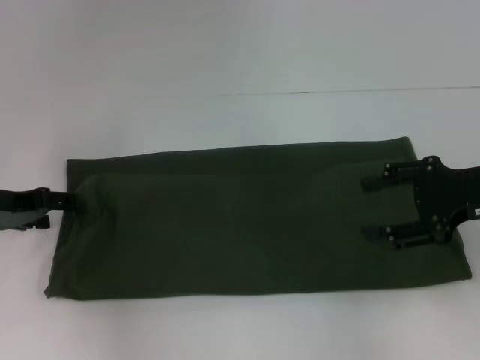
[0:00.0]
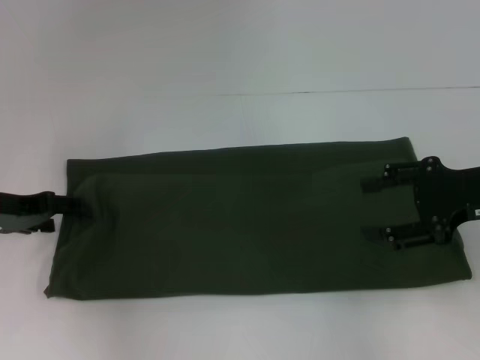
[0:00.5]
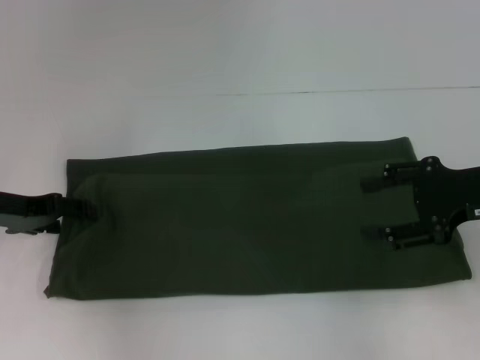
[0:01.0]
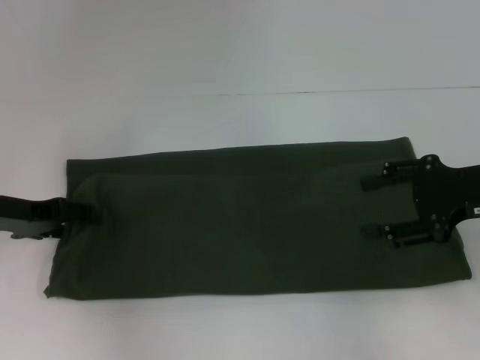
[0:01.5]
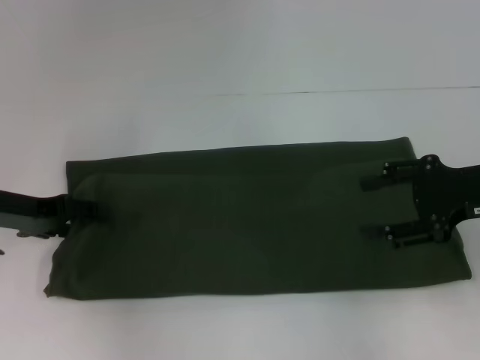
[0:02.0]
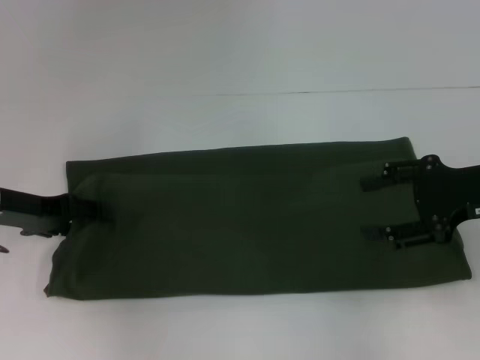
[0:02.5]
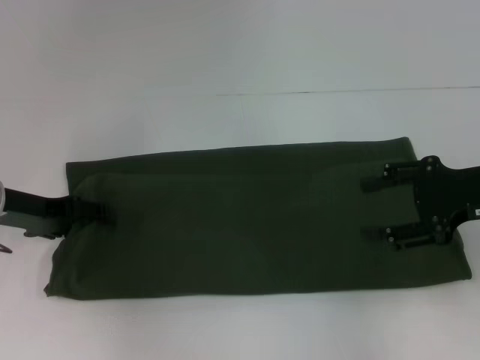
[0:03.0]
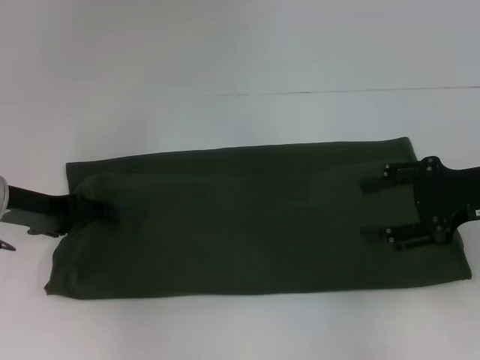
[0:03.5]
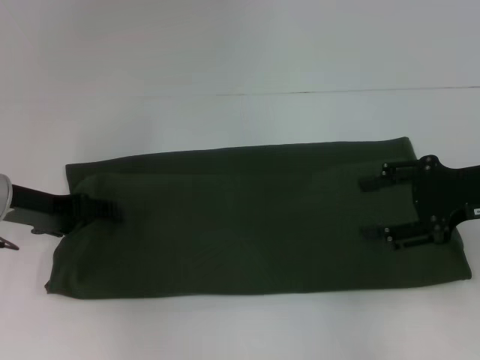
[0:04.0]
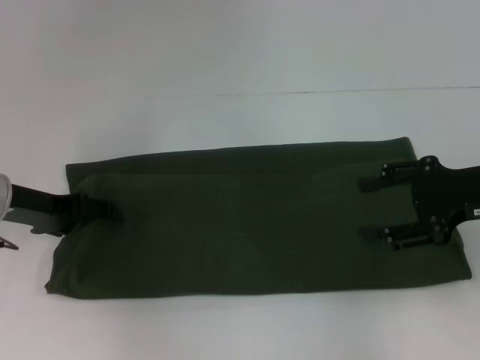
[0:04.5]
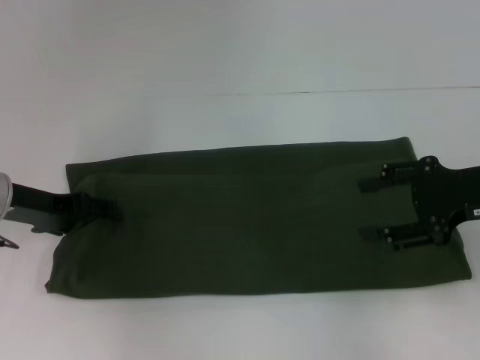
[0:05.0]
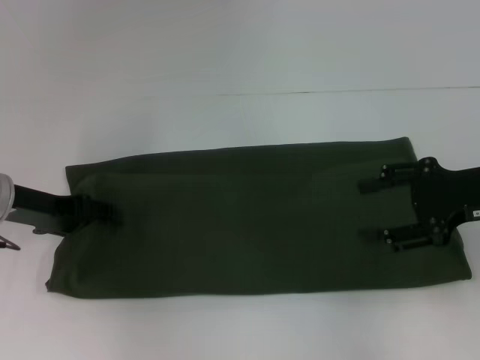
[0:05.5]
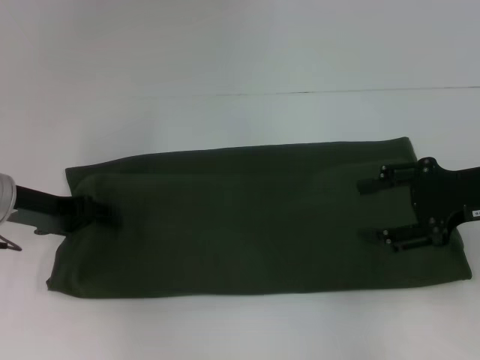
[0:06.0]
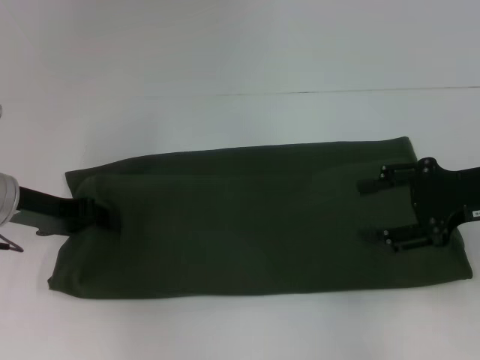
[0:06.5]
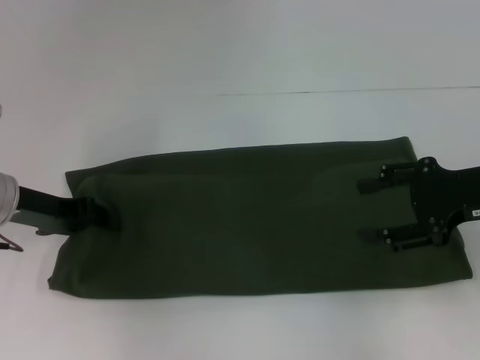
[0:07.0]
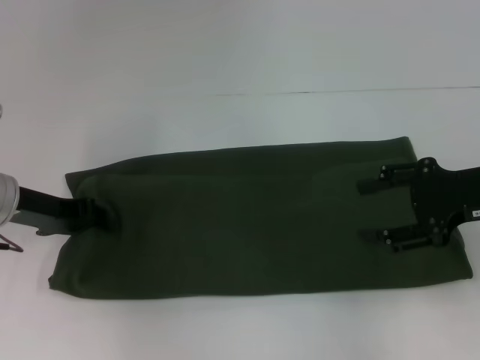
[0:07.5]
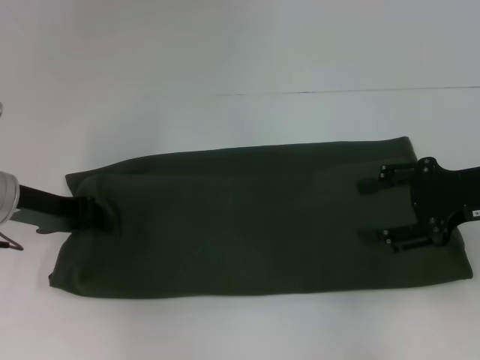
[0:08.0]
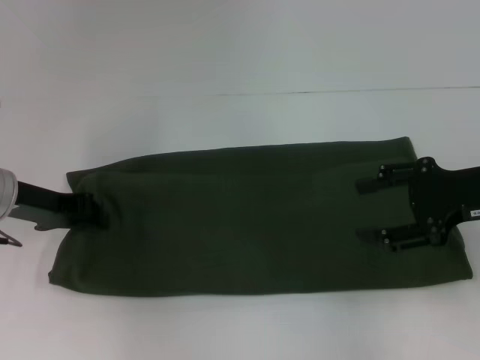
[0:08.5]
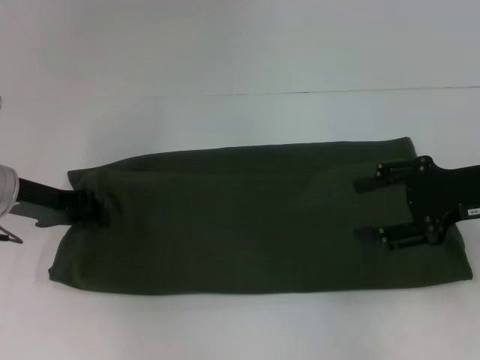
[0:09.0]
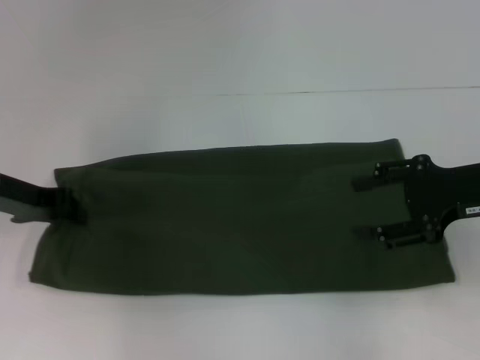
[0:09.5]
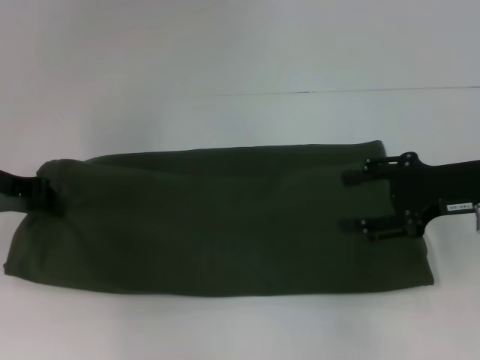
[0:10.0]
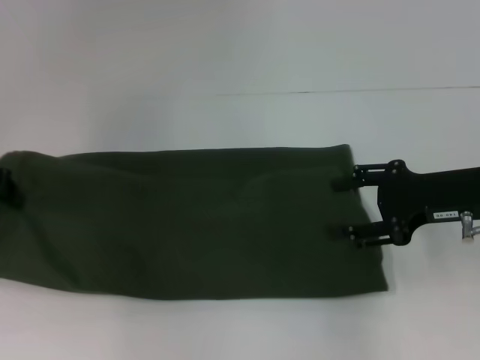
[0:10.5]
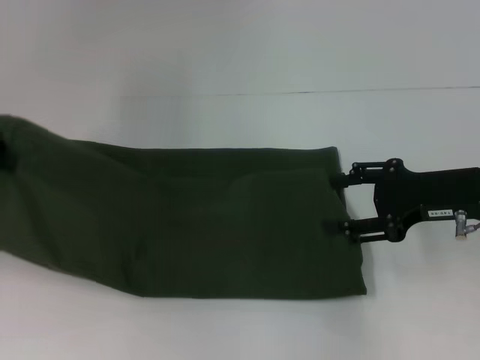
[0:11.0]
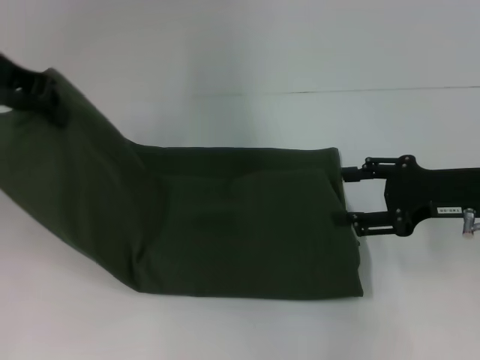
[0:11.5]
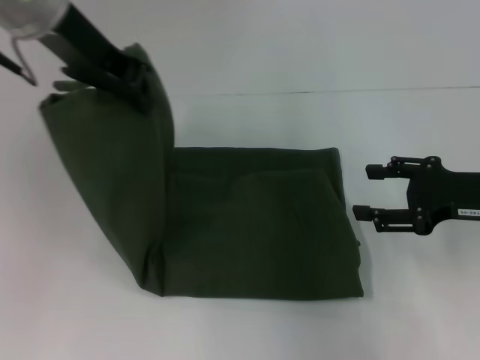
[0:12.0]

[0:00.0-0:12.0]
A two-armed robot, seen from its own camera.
0:00.0 to 0:04.0: The grippers make only small movements.
0:04.0 to 0:06.0: Both grippers stay put.
0:06.0 to 0:08.0: The left gripper closes its fingers.
0:08.0 to 0:10.0: The left gripper moves about 5 cm.
0:10.0 to 0:12.0: The left gripper goes approximately 25 cm upward and to the right.

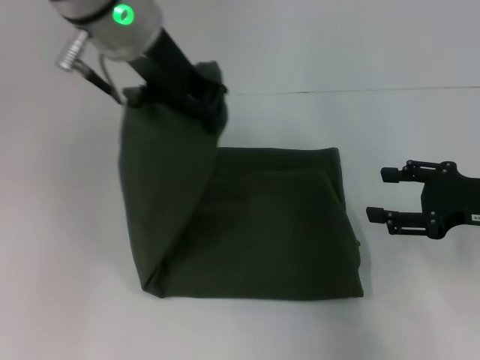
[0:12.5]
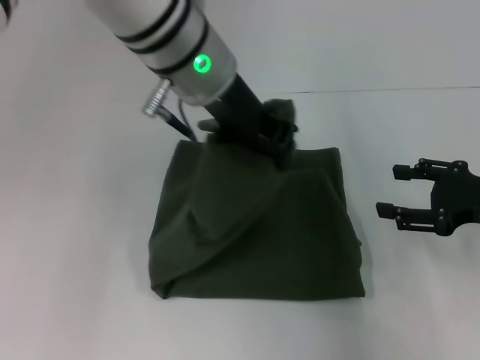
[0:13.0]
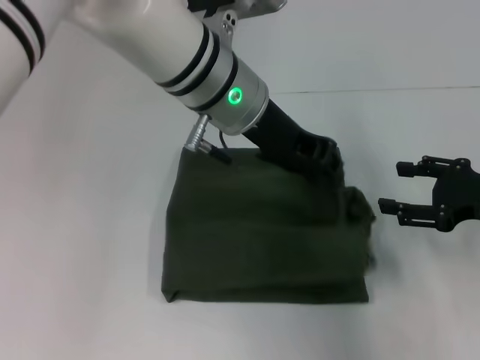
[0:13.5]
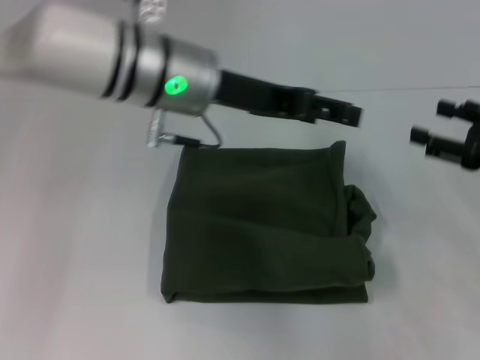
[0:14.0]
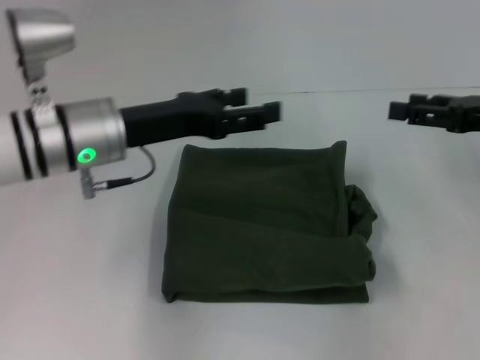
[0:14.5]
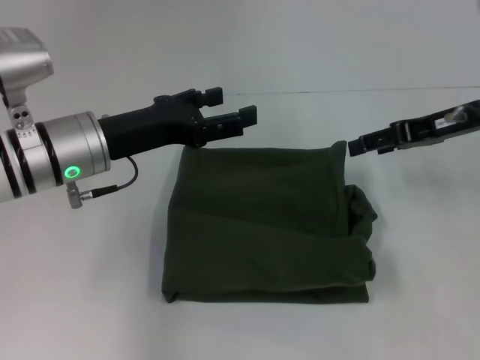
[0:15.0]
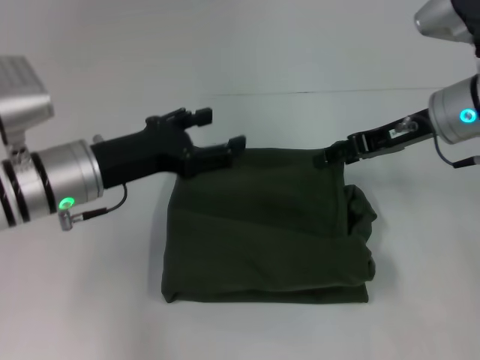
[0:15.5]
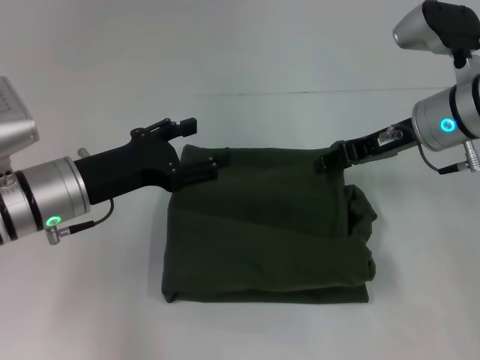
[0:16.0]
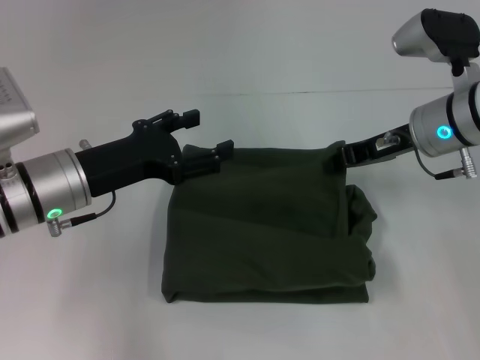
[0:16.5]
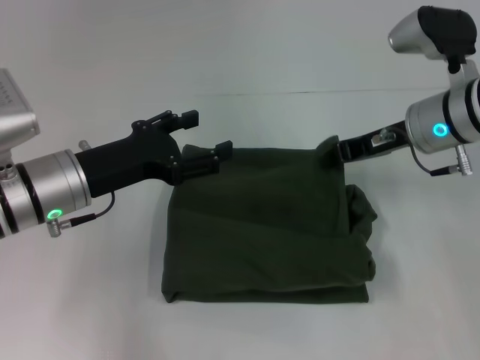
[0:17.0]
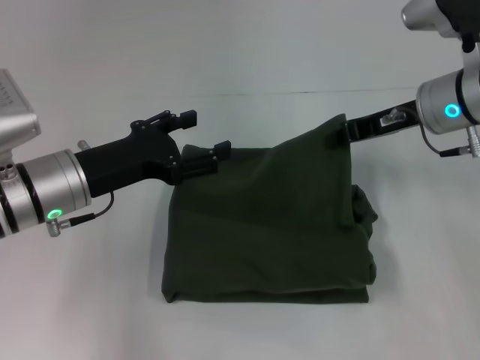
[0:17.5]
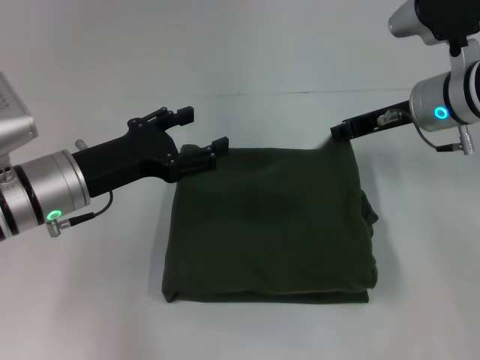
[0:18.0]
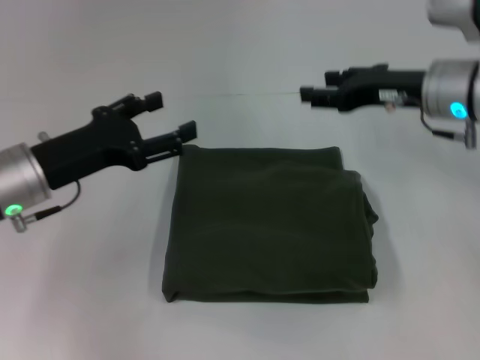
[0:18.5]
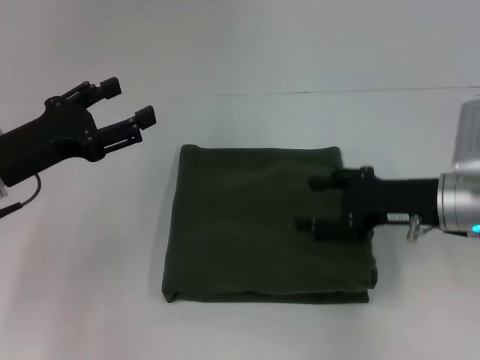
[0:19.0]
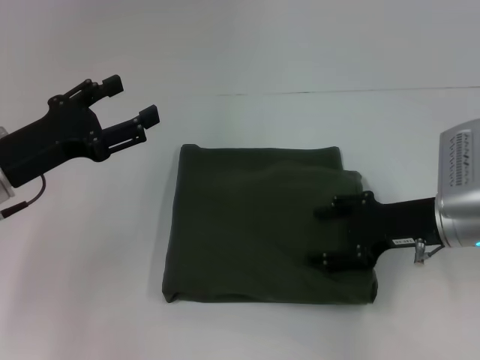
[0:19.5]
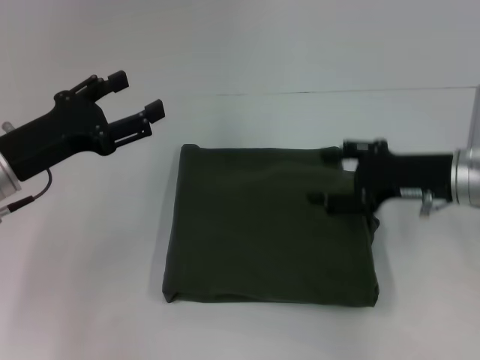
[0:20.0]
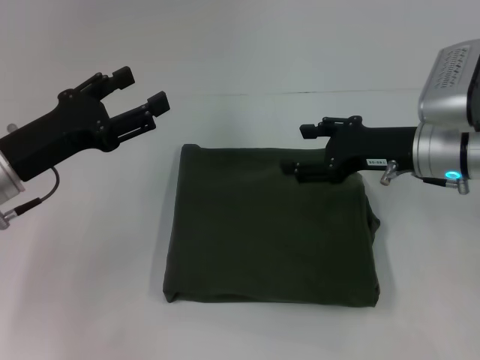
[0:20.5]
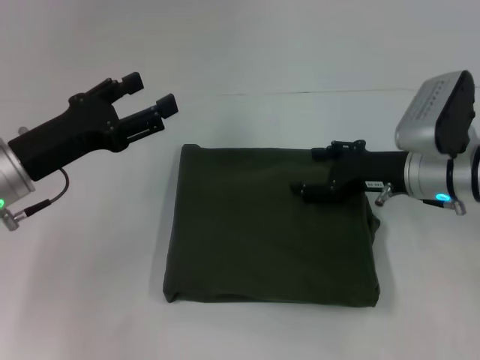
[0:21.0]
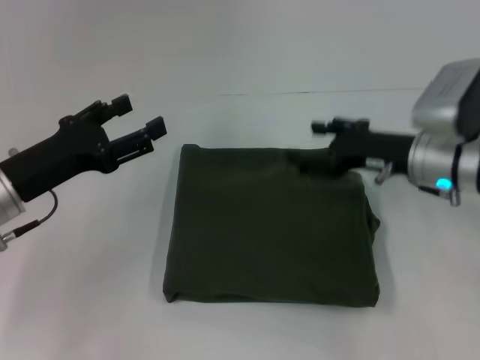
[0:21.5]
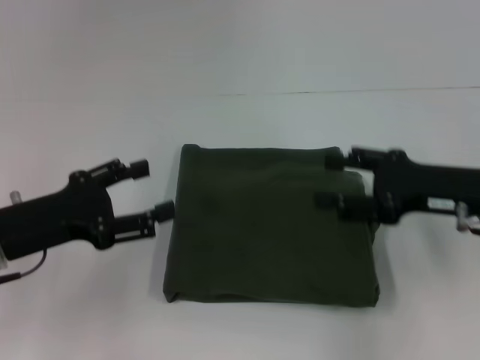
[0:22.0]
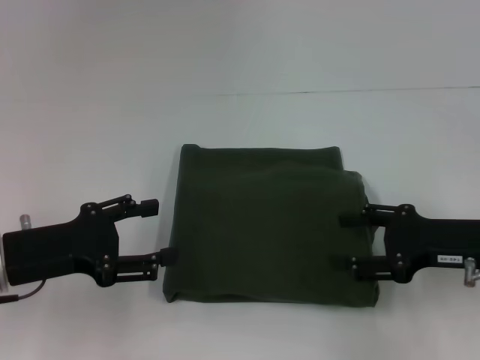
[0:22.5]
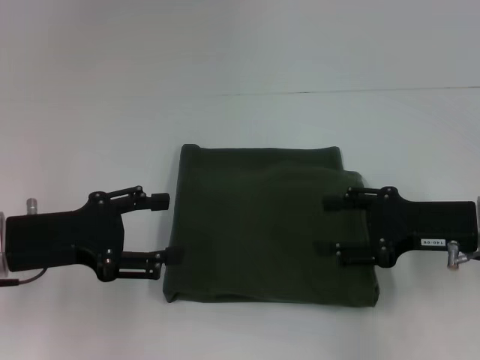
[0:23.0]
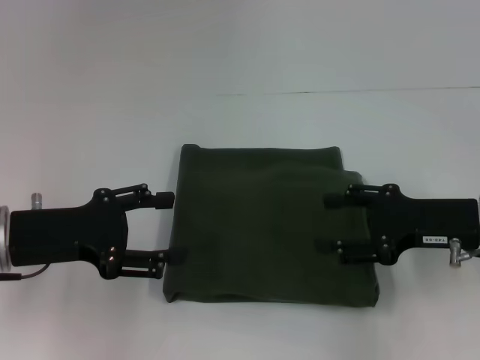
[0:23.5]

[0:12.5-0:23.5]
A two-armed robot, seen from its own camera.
0:12.5 to 0:14.5: The left gripper heads downward and to the left, covering about 15 cm, and opens up; the right gripper is displaced upward by about 5 cm.
0:14.5 to 0:16.0: The right gripper shifts approximately 15 cm to the left and forward; the left gripper goes approximately 5 cm downward.
0:16.0 to 0:18.0: The right gripper closes up.
0:18.0 to 0:20.0: The right gripper shifts about 10 cm backward, and opens its fingers, while the left gripper is displaced to the left by roughly 5 cm.
0:20.0 to 0:21.5: The grippers make only small movements.
0:21.5 to 0:23.5: The right gripper is displaced backward by approximately 5 cm.

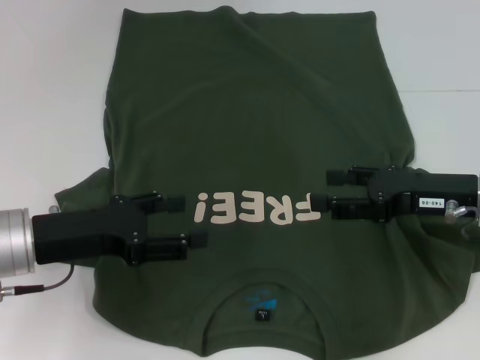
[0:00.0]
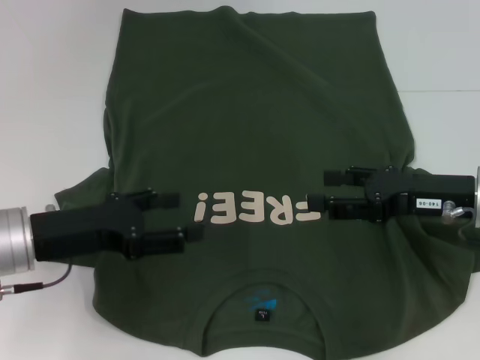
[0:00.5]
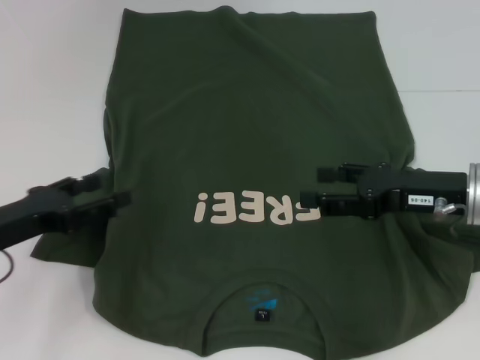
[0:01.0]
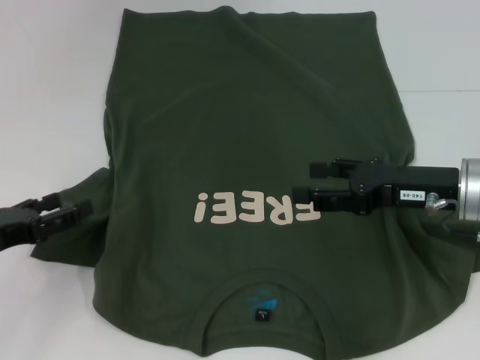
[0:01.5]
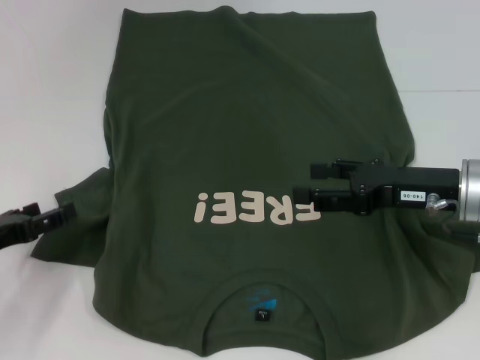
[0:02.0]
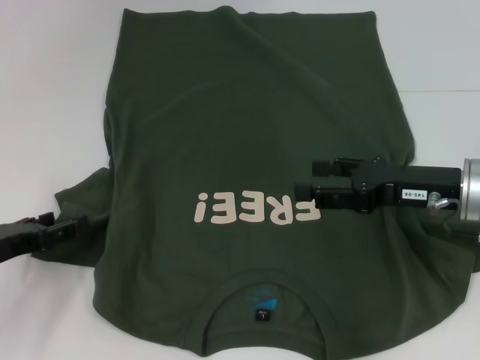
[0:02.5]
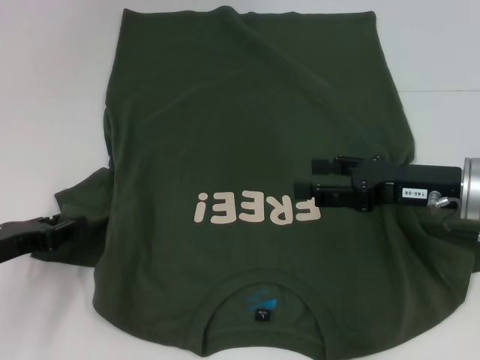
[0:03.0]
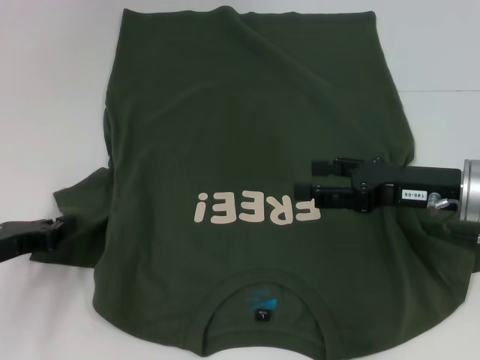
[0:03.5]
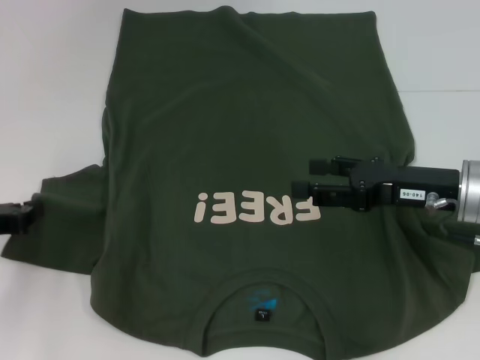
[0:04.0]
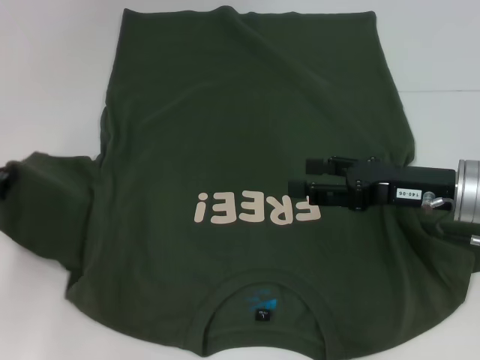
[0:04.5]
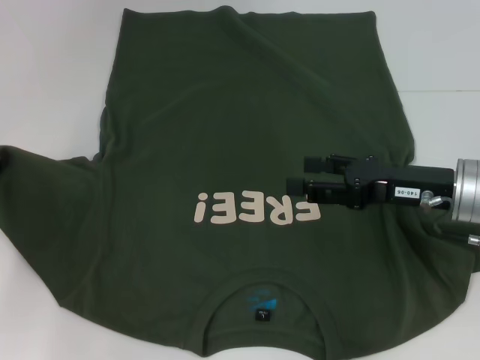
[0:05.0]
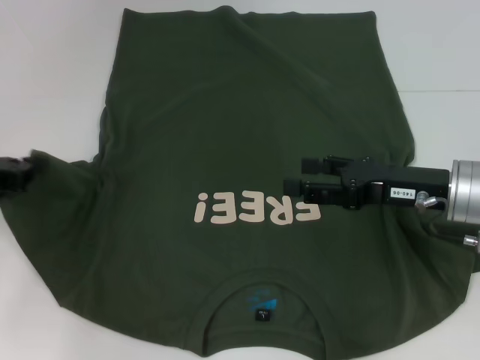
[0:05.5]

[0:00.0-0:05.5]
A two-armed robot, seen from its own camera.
0:00.0 to 0:02.0: The left gripper travels to the left and downward by approximately 10 cm.
0:02.0 to 0:03.5: The left gripper closes.
0:03.5 to 0:05.5: The left gripper goes about 5 cm upward.
